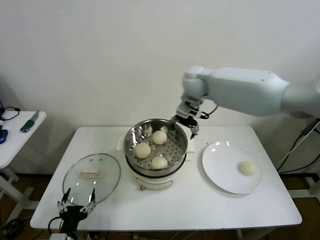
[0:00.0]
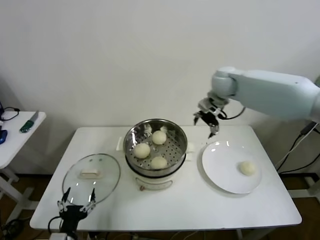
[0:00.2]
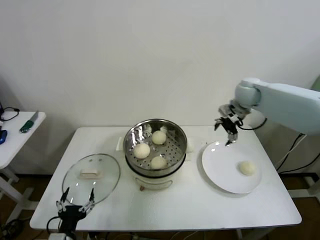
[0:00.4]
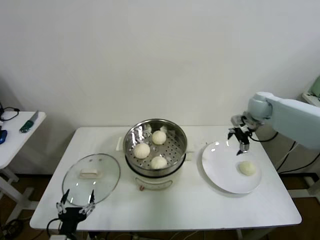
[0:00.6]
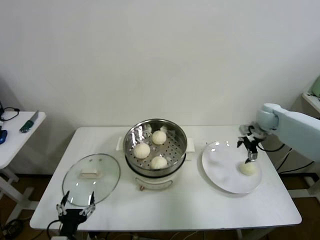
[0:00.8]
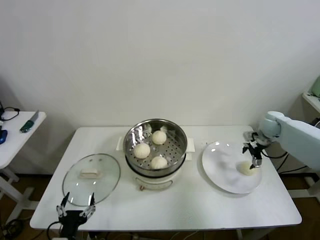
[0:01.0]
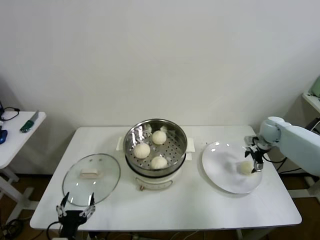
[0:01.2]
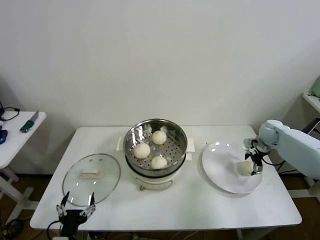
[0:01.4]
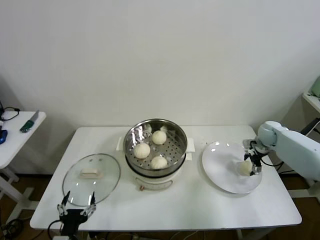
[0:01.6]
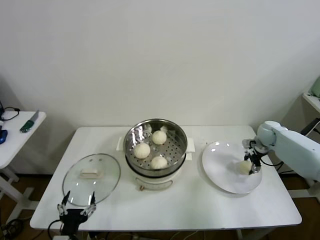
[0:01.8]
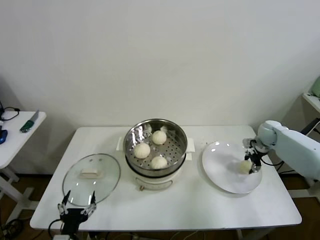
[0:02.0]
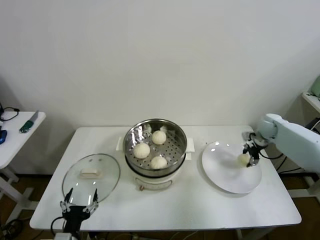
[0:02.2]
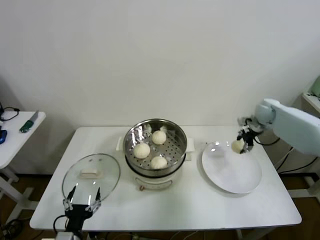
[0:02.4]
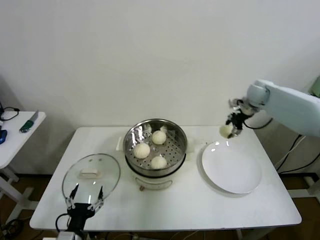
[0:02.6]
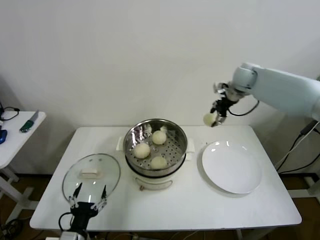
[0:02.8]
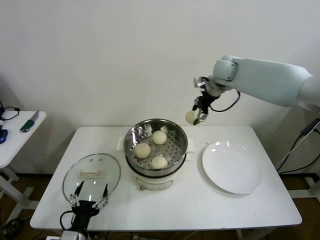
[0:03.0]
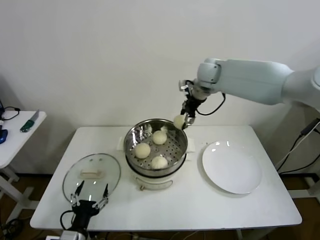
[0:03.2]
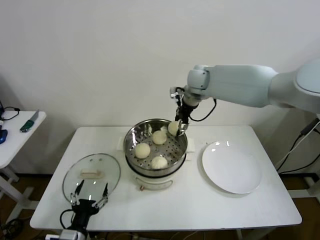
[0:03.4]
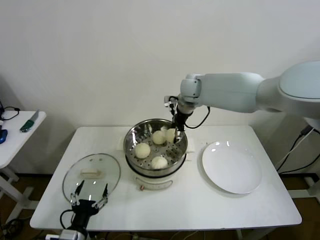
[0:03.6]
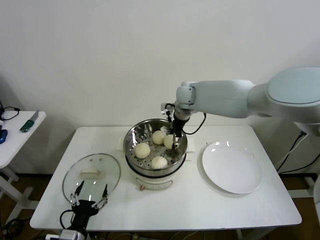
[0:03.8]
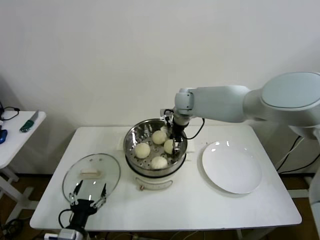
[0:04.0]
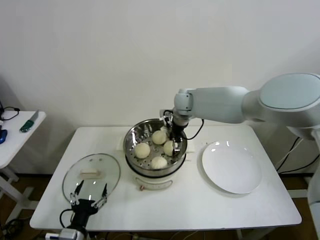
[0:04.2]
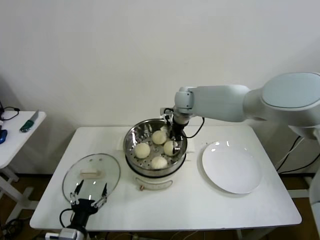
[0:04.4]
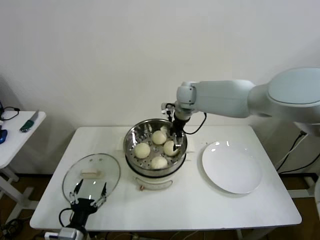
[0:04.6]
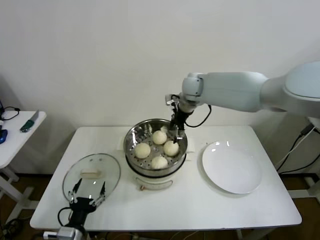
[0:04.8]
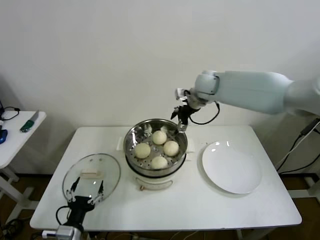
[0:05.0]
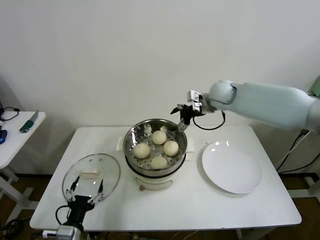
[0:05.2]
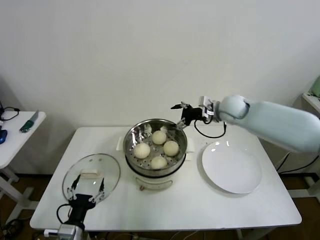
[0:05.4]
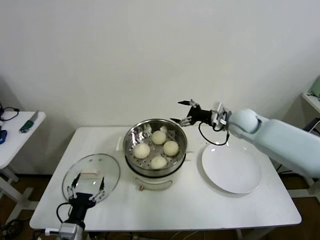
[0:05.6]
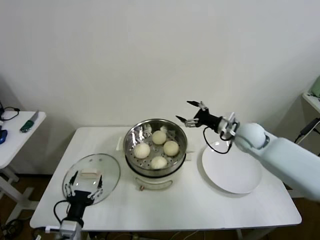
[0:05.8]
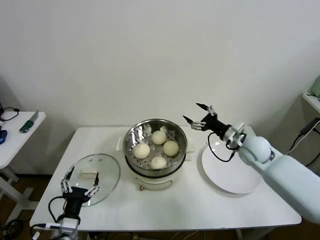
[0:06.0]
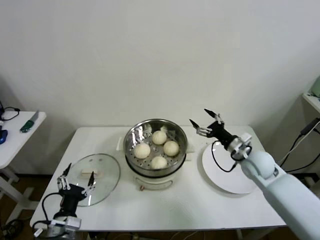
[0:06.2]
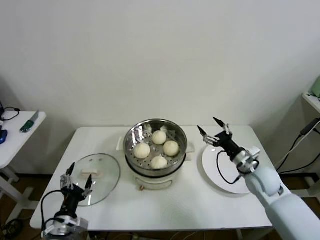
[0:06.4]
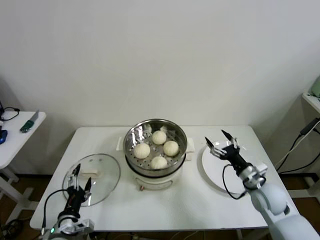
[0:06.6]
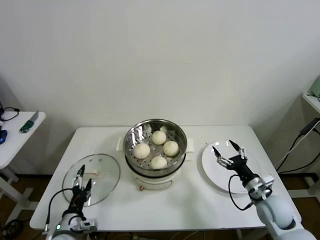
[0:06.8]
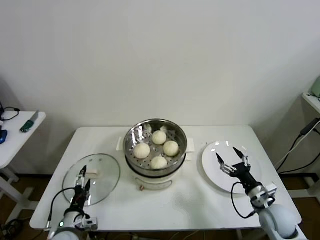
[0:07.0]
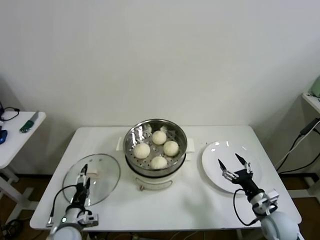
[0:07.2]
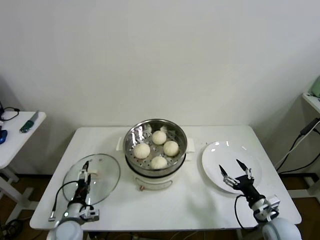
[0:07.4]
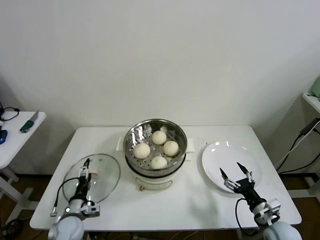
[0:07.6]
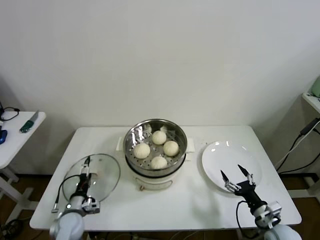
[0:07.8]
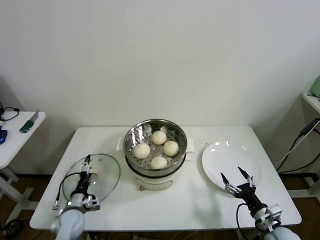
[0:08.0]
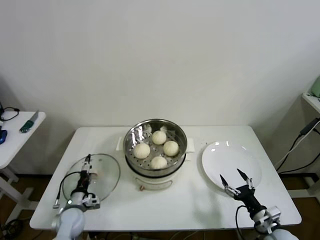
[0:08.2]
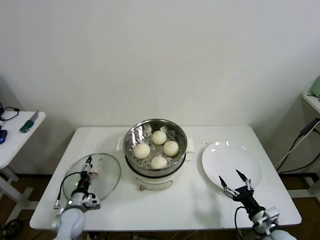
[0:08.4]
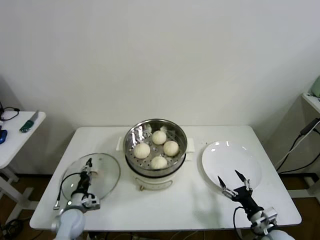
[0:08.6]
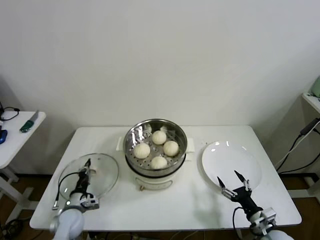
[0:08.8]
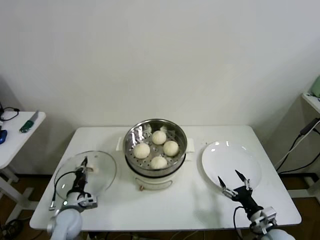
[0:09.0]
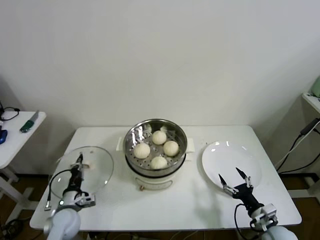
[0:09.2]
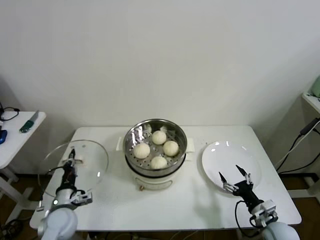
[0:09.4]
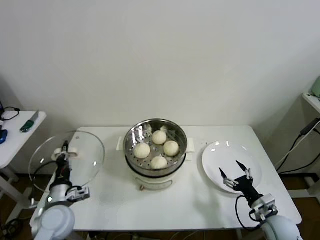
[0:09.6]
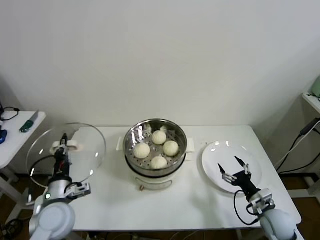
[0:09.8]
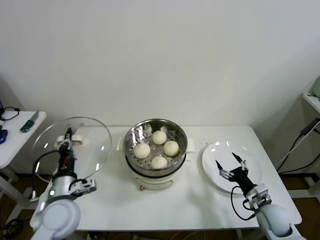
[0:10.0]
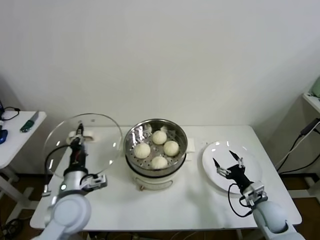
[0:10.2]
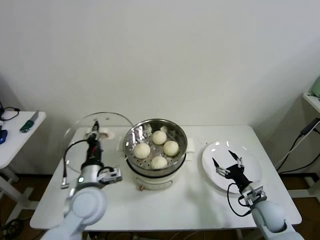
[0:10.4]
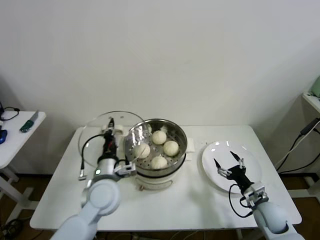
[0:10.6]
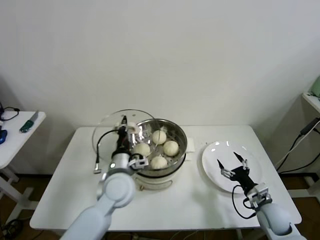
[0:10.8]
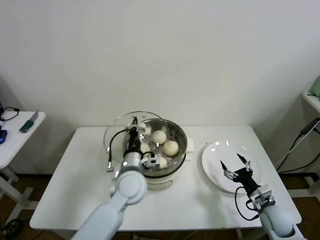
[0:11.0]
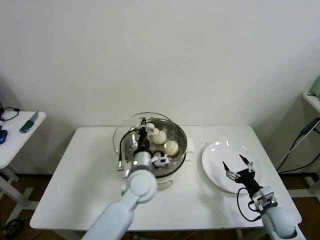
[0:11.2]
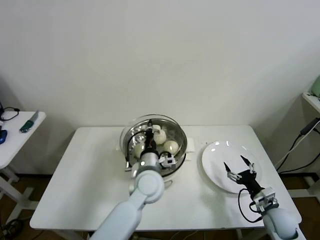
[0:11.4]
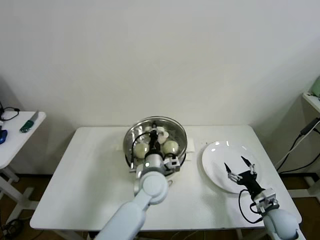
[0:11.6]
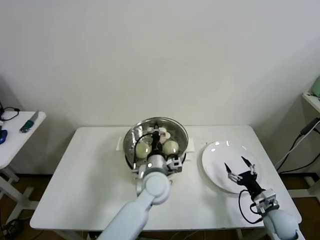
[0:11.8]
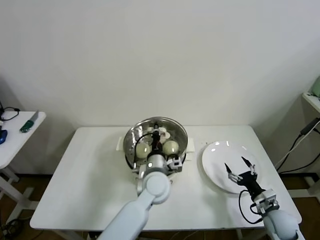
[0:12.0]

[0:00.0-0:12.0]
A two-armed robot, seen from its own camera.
Step, 0:00.0 to 0:01.6: Grasp the baozi in the plate with right gripper.
Step, 0:01.8 to 0:04.2: Place the baozi on the steamer with right gripper.
Step, 0:04.6 to 0:08.8: Grasp the pot lid with left gripper.
0:00.0 to 0:01.6: The right gripper is displaced to the right and downward by roughly 40 cm.
0:01.6 to 0:03.0: The right gripper goes approximately 35 cm upward and to the left, and closes its fingers.
0:03.0 to 0:04.4: The right gripper is displaced to the left and downward by approximately 15 cm, and opens its fingers.
0:04.4 to 0:06.0: The right gripper moves to the right, backward and downward, roughly 30 cm.
0:06.0 to 0:07.6: The right gripper moves backward and downward, some 25 cm. The left gripper heads forward and downward, covering some 15 cm.
0:07.6 to 0:09.0: The left gripper closes up.
0:09.0 to 0:10.4: The left gripper heads upward and to the right, covering roughly 25 cm. The right gripper shifts roughly 10 cm forward.
0:10.4 to 0:12.0: The left gripper moves to the right, roughly 20 cm.

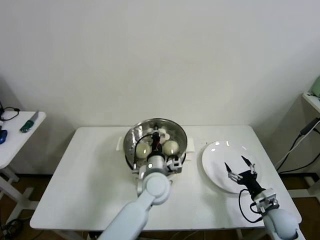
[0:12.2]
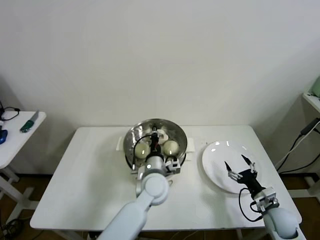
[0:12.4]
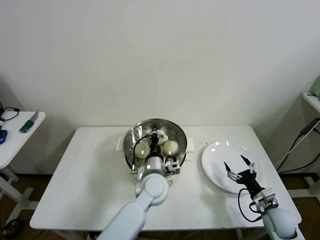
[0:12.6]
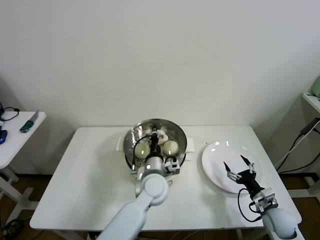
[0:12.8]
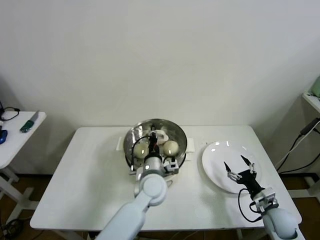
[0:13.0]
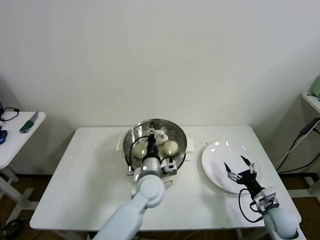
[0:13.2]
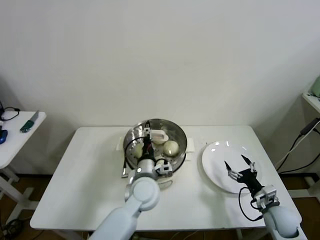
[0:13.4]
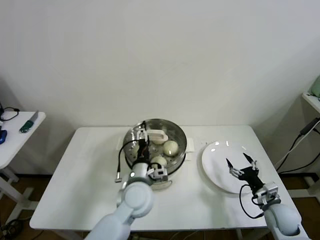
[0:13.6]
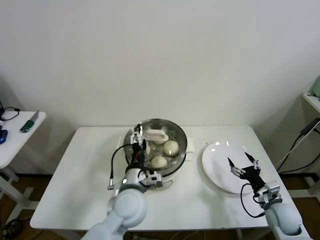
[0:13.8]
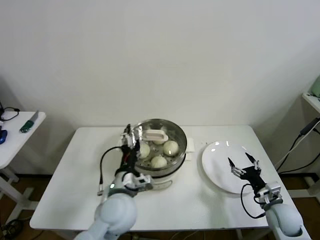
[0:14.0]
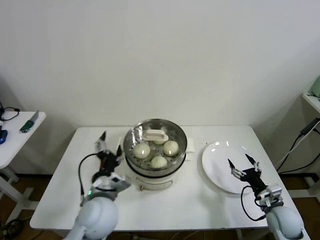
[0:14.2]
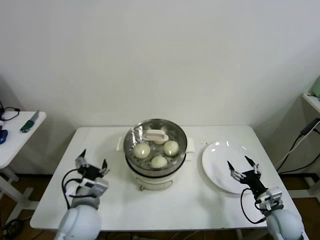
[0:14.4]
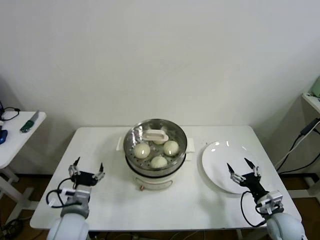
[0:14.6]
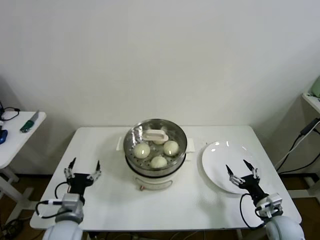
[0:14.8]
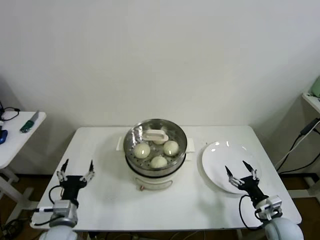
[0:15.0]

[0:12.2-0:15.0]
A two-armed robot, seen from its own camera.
0:12.2 to 0:13.6: The left gripper moves some 5 cm, and opens up.
0:13.6 to 0:15.0: The left gripper goes roughly 25 cm to the left and backward.
